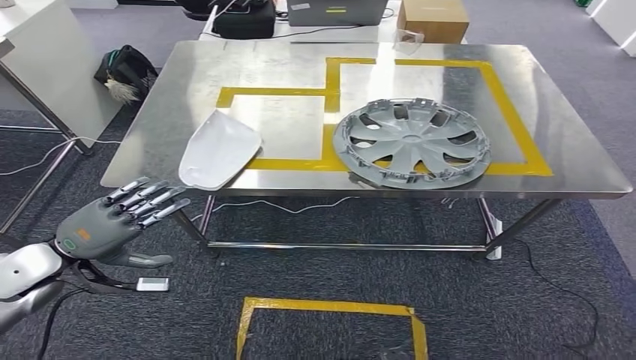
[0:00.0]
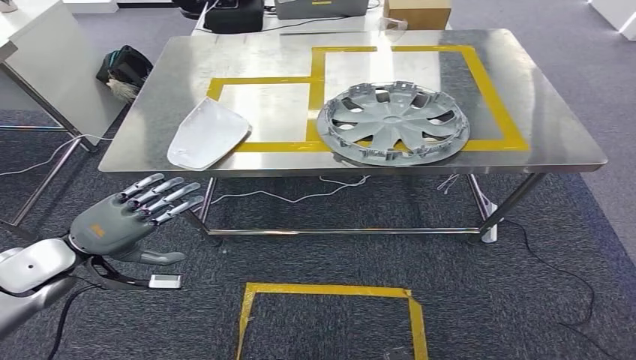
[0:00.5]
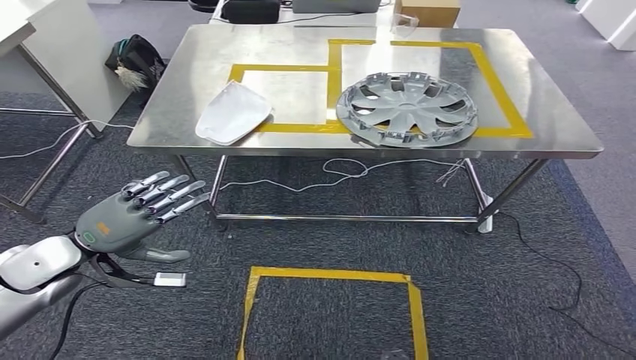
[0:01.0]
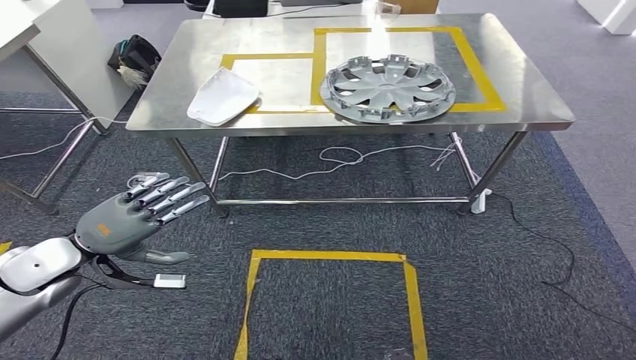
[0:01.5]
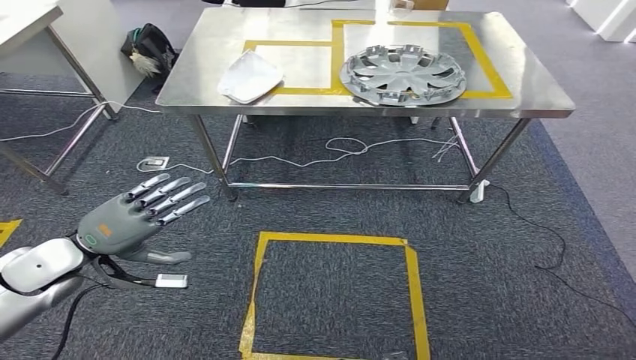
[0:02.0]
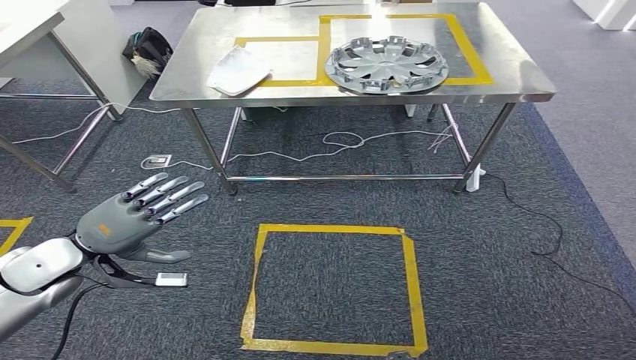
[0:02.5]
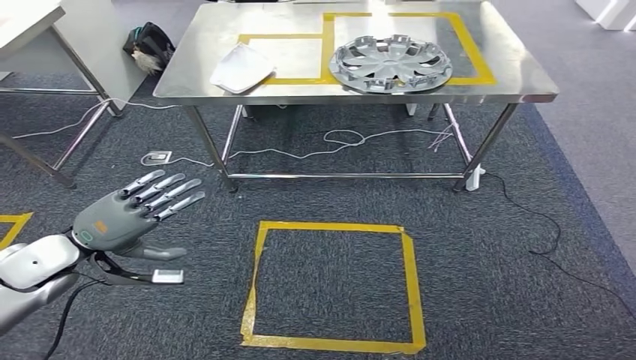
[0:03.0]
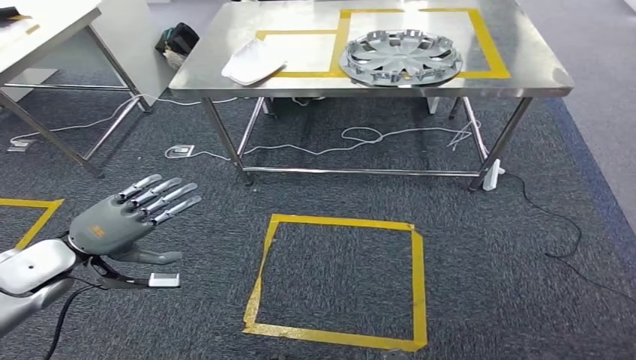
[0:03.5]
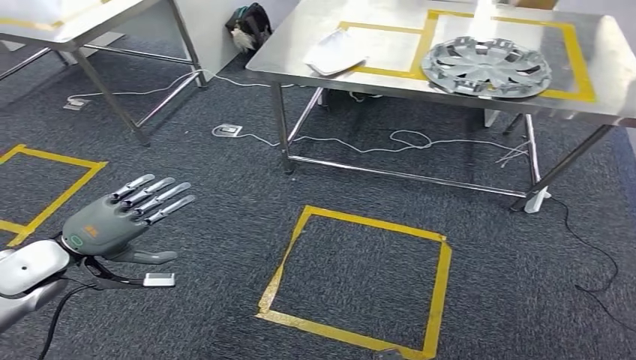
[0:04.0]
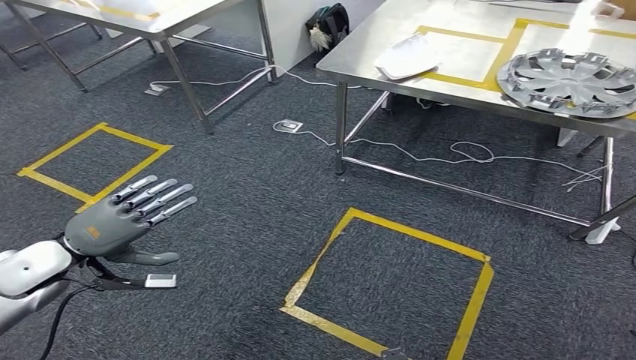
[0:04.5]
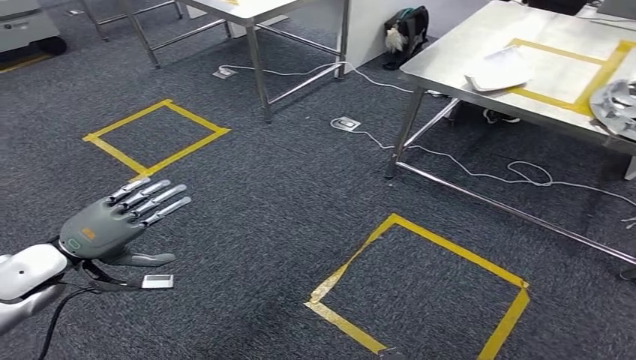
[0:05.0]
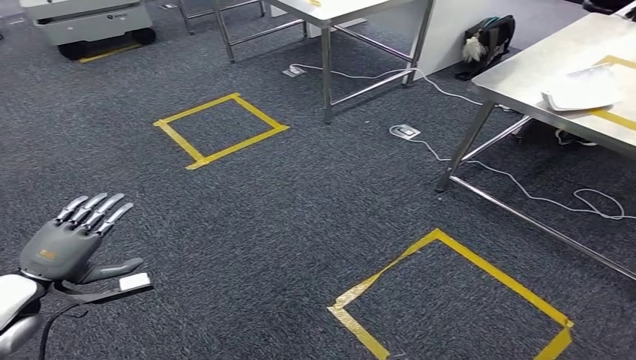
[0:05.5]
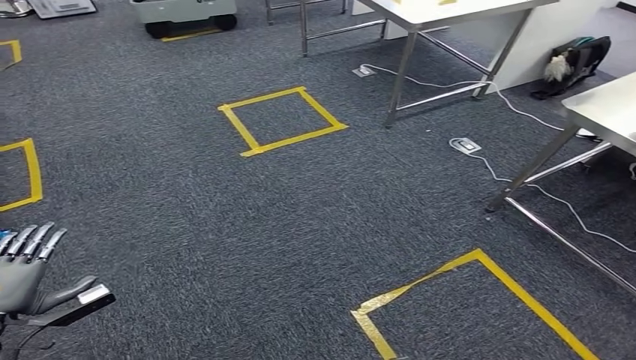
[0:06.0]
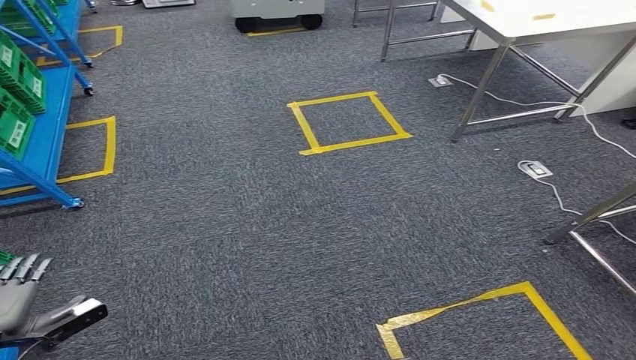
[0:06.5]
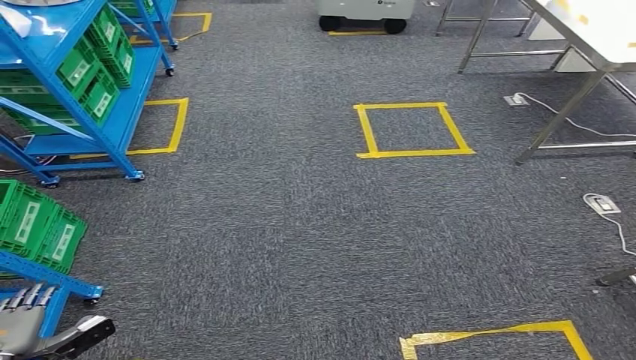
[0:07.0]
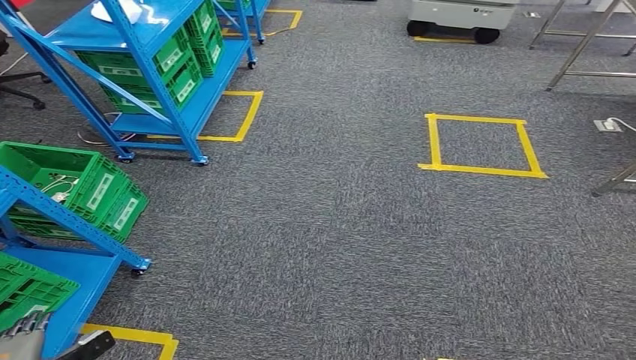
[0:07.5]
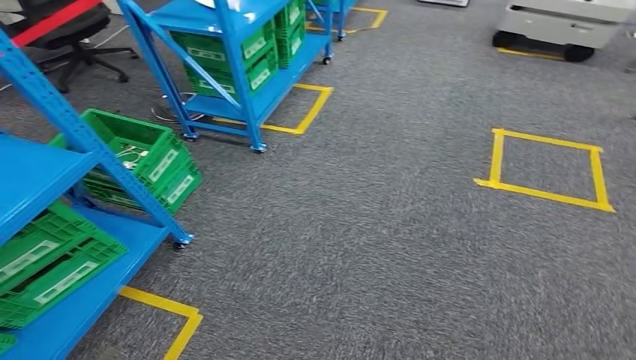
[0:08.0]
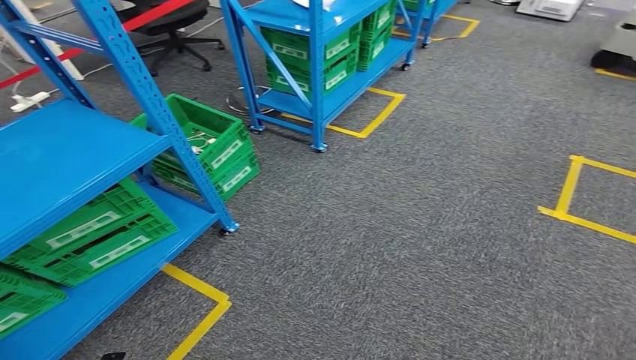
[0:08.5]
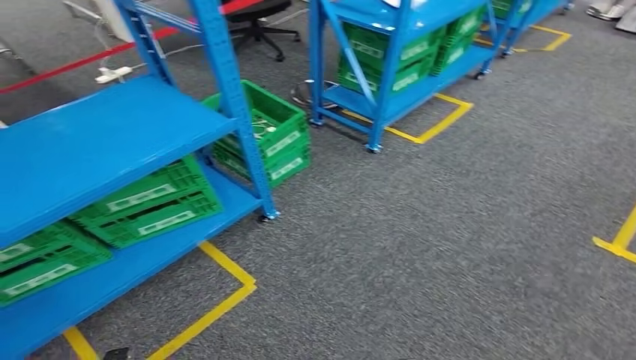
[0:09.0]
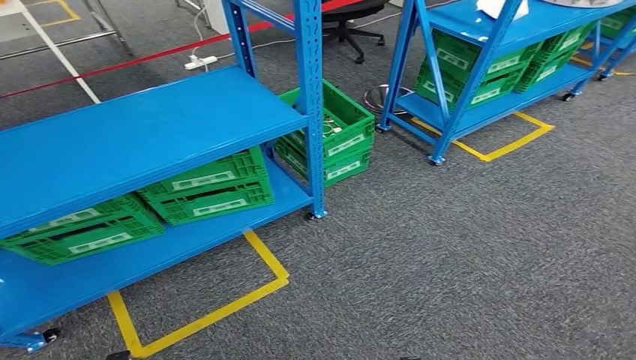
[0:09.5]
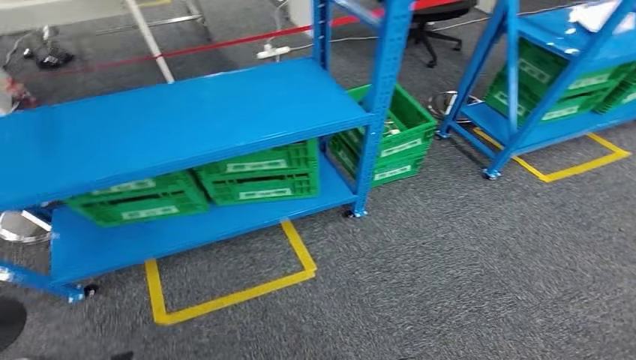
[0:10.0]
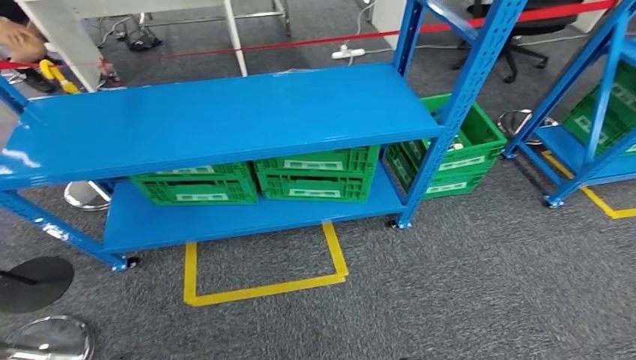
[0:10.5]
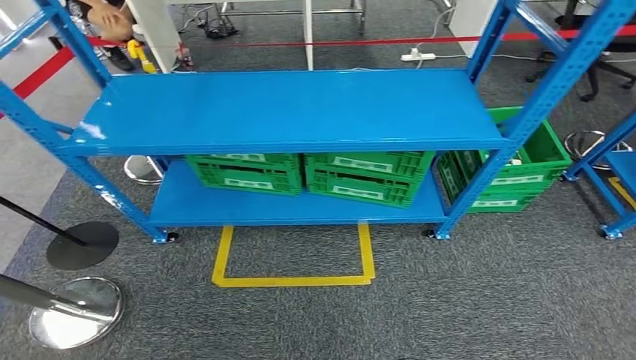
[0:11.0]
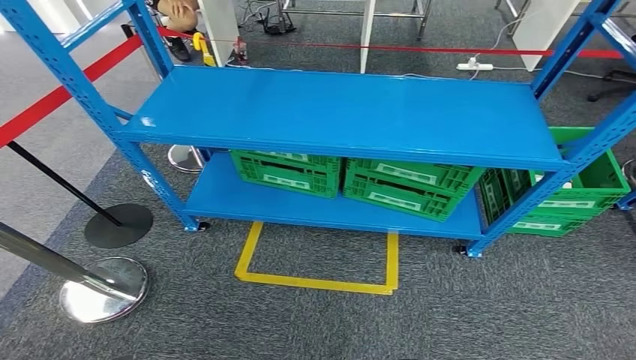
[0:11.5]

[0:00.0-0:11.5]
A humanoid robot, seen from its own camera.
Step, 0:01.0 to 0:11.5: Return to the initial position at the workbench.
